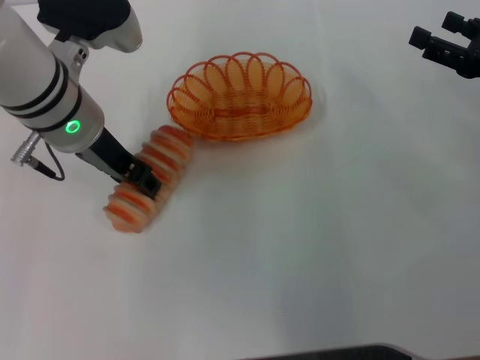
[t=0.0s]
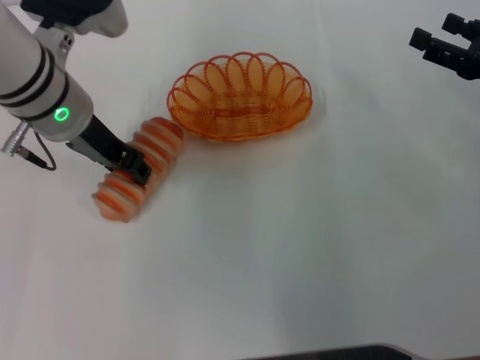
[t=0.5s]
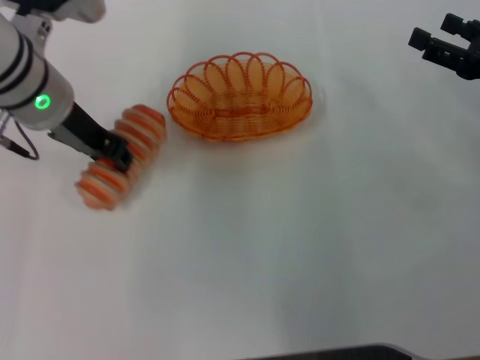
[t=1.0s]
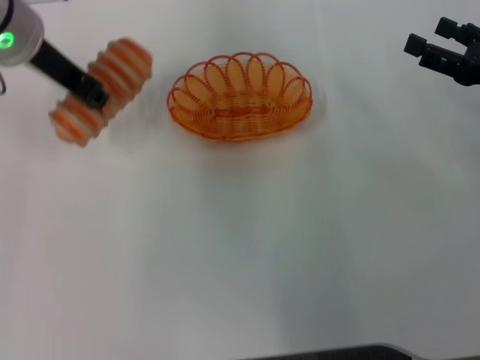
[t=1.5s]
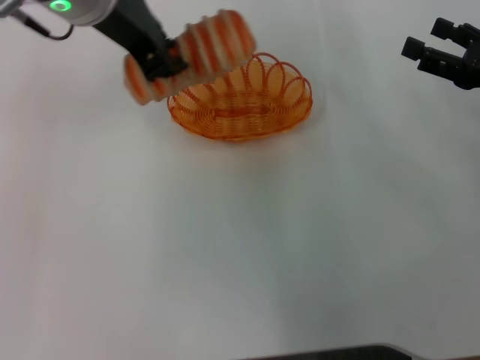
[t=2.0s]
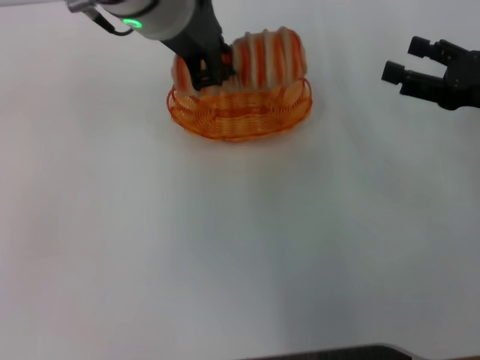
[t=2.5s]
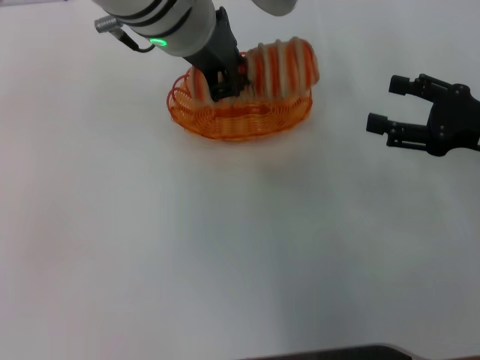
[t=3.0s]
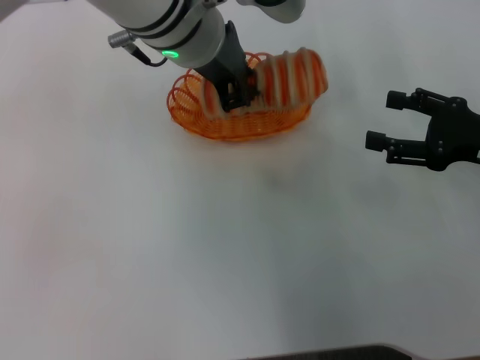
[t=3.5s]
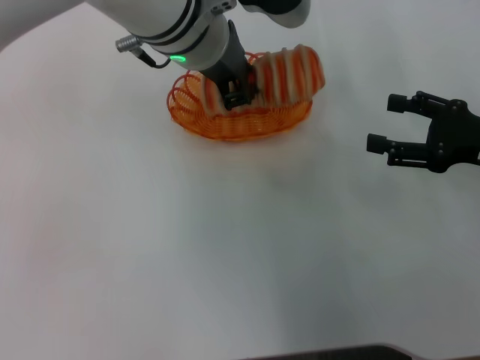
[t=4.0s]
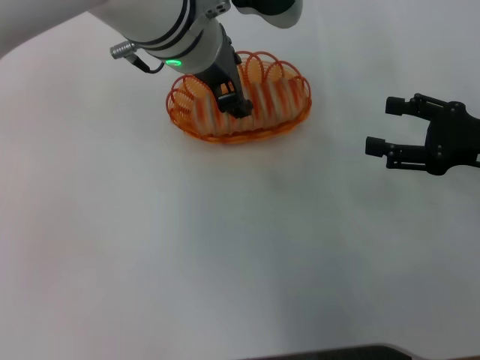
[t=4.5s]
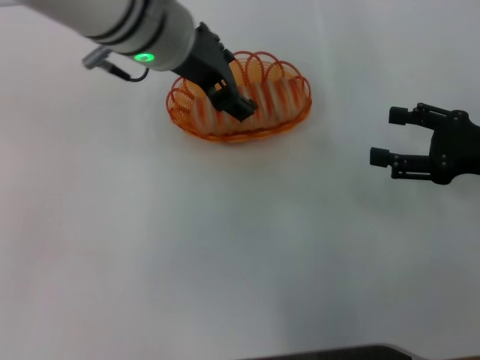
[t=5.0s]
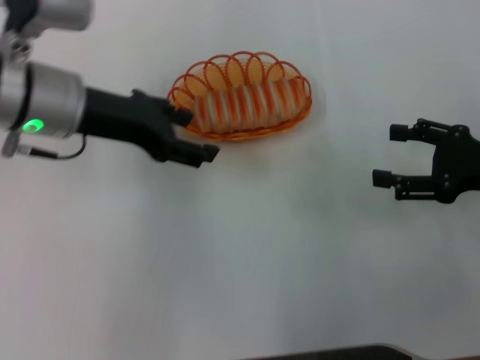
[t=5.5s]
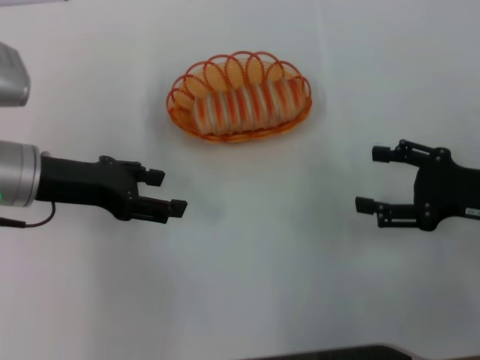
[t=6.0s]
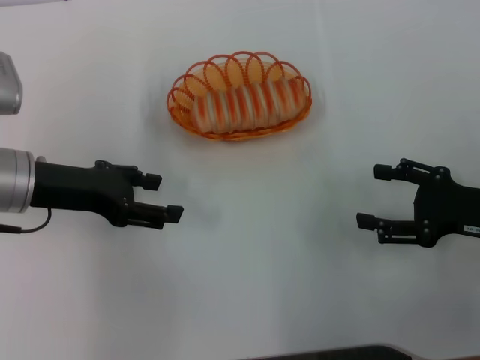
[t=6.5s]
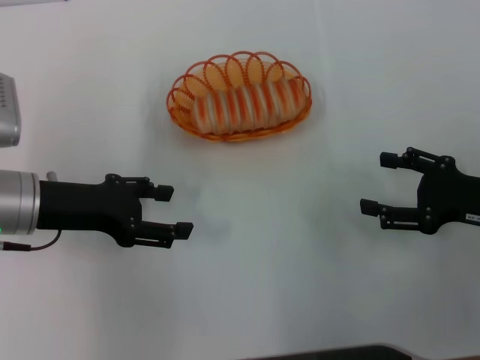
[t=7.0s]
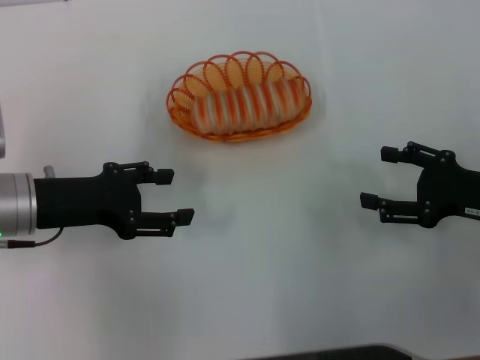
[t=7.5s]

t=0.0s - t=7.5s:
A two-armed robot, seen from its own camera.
Step, t=1.5s - t=5.5s: Place the long bread into the basket with the left gripper.
t=0.0s - t=2.0s: The left gripper travels upward by some 10 cm, and closes up.
t=2.0s - t=4.0s: The left gripper goes some 10 cm to the right and downward.
t=4.0s - t=5.5s: The left gripper is displaced to the left by roughly 15 cm, and opens up.
t=5.5s - t=7.5s: The left gripper shifts some 10 cm downward, to the left and backward.
